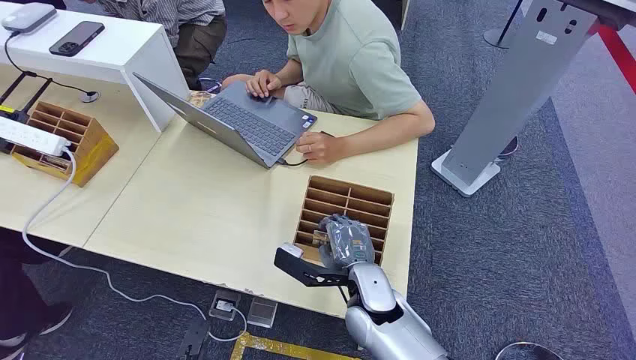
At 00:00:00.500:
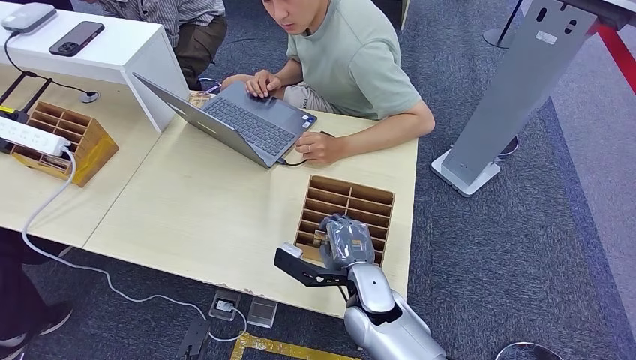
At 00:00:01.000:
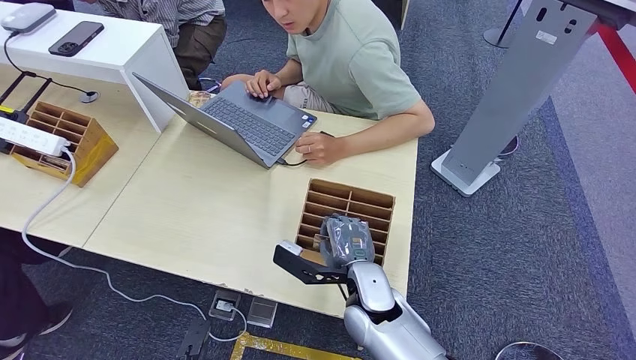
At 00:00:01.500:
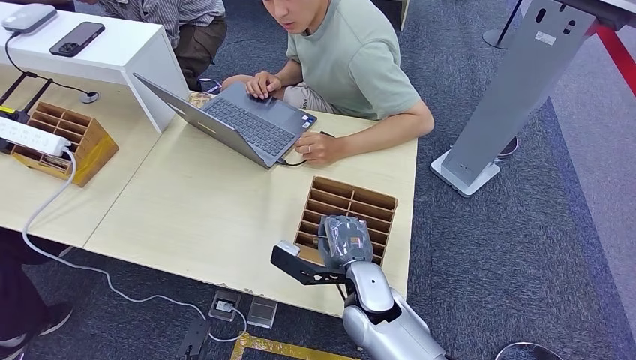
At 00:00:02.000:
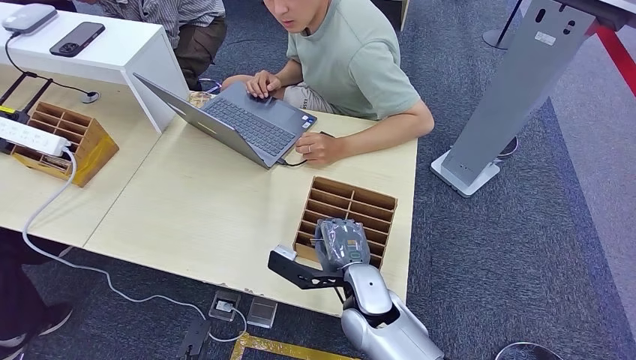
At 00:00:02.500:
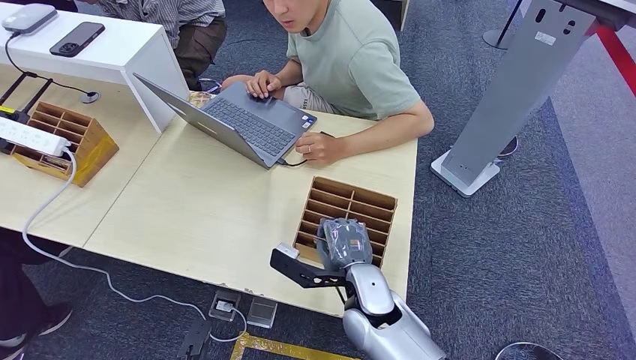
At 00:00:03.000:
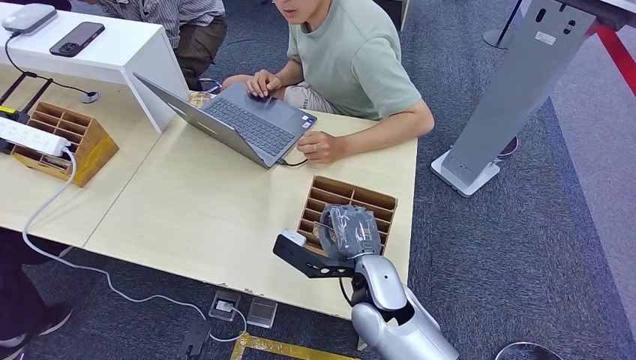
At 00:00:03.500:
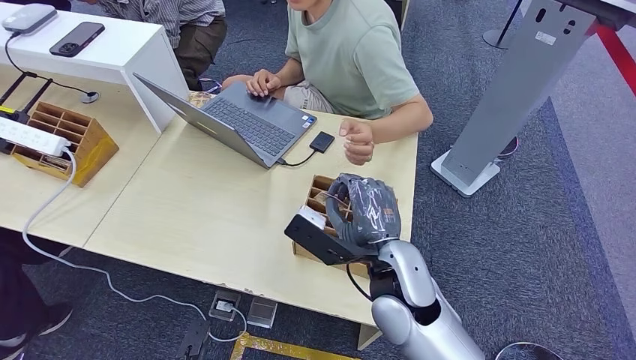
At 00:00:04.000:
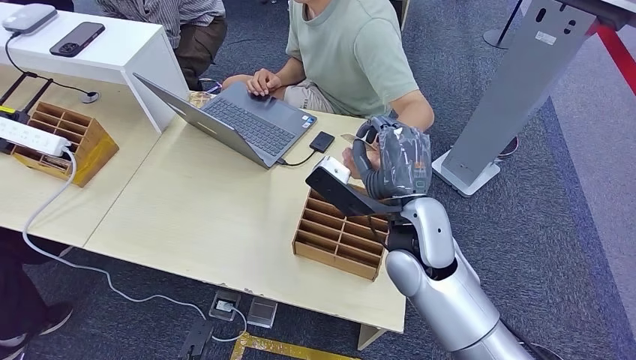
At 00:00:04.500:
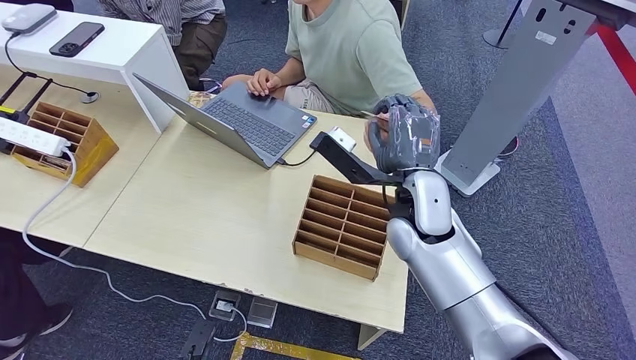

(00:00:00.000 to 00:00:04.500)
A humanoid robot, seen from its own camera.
Step, 00:00:00.000 - 00:00:02.500: Pick up the key card from the card box.
Step, 00:00:04.000 - 00:00:04.500: Hand the key card to the target.
00:00:02.000 - 00:00:04.500: The right hand is displaced upward and forward by roughly 20 cm.
